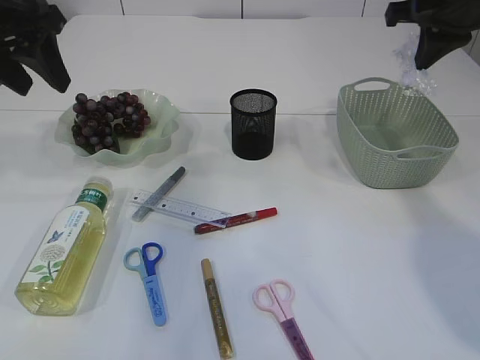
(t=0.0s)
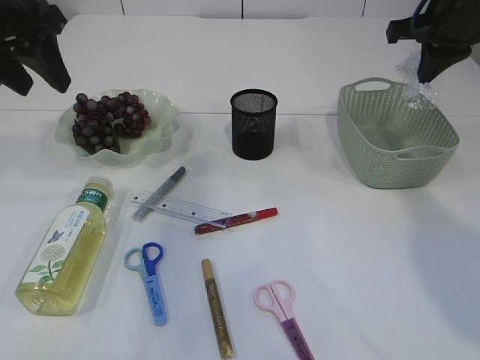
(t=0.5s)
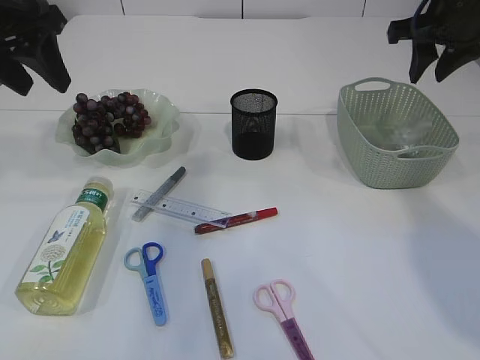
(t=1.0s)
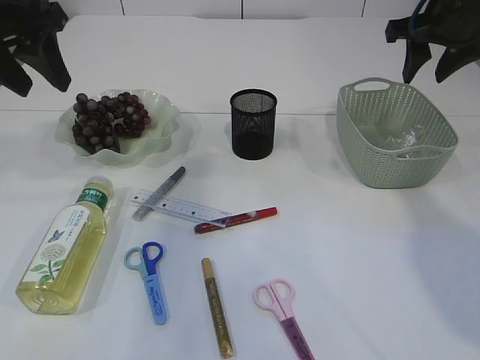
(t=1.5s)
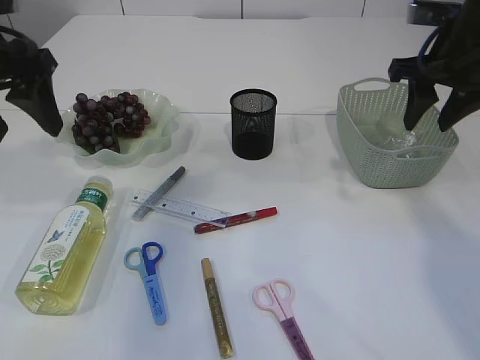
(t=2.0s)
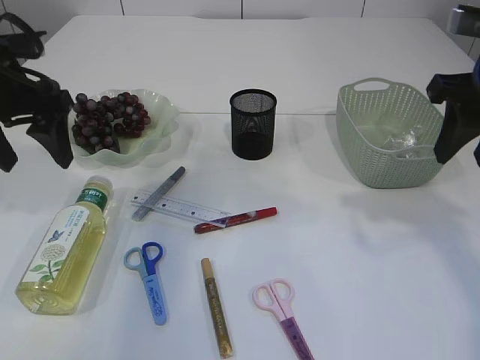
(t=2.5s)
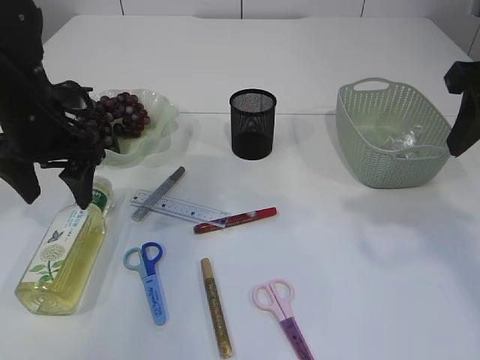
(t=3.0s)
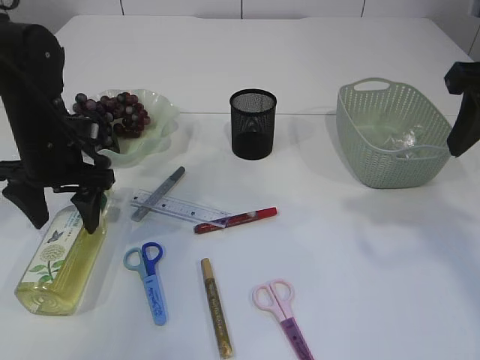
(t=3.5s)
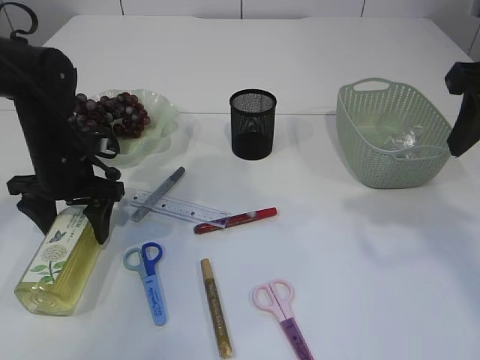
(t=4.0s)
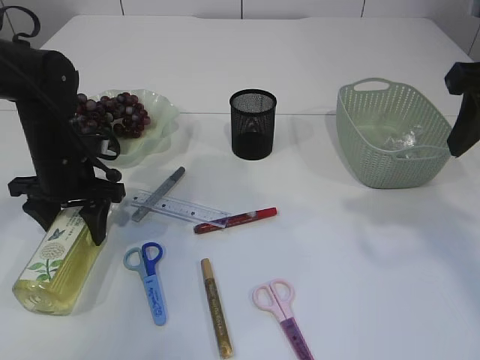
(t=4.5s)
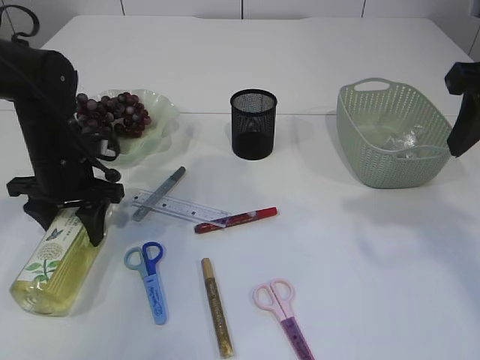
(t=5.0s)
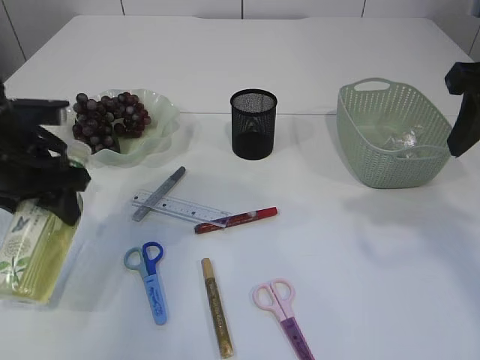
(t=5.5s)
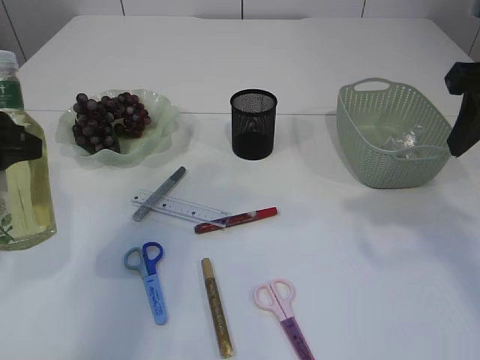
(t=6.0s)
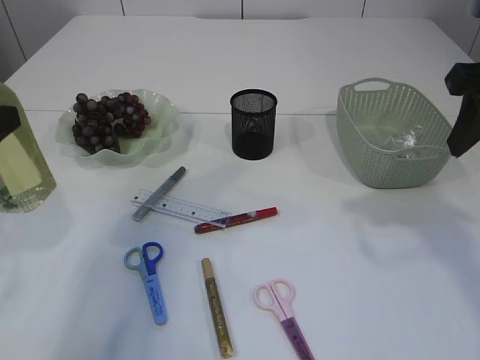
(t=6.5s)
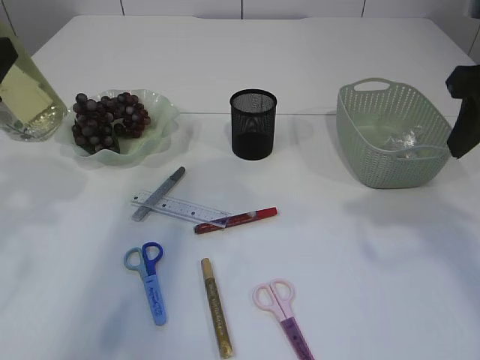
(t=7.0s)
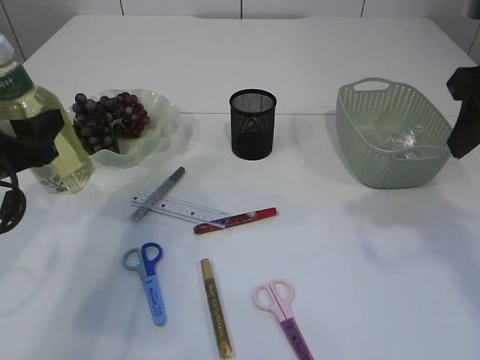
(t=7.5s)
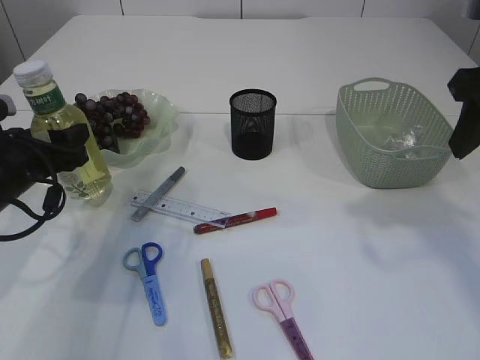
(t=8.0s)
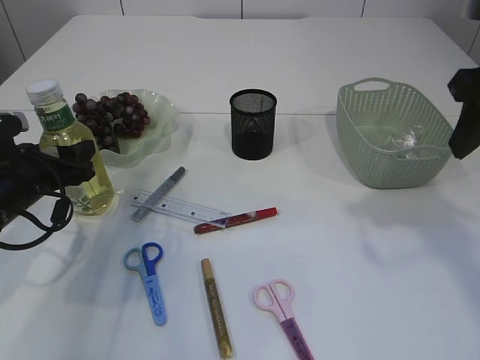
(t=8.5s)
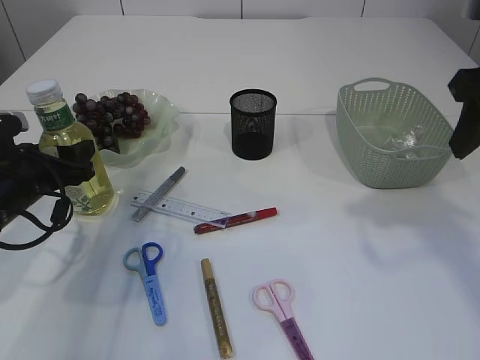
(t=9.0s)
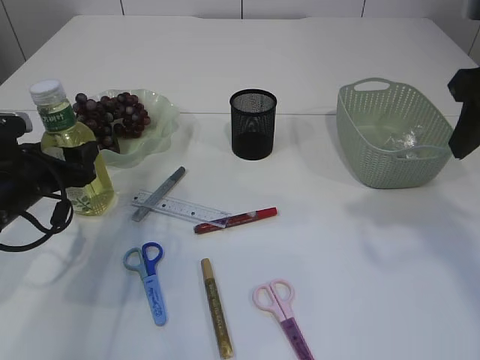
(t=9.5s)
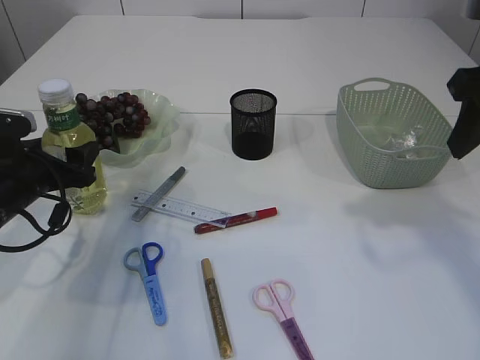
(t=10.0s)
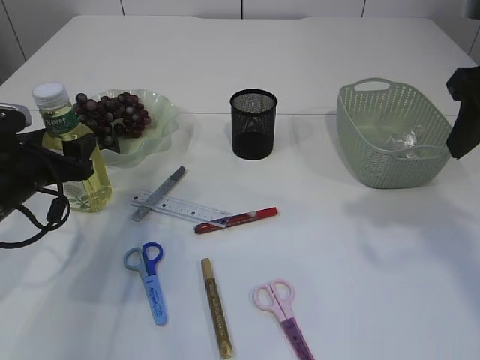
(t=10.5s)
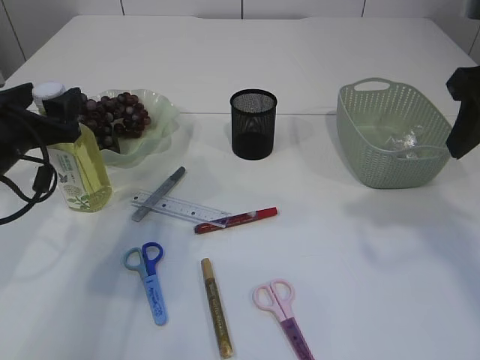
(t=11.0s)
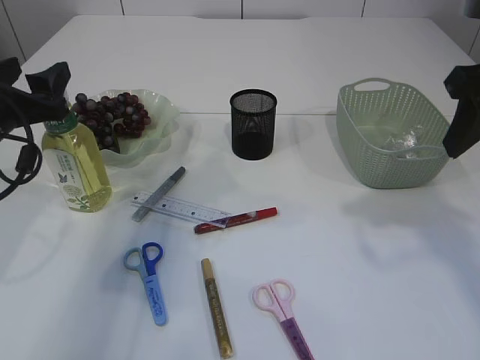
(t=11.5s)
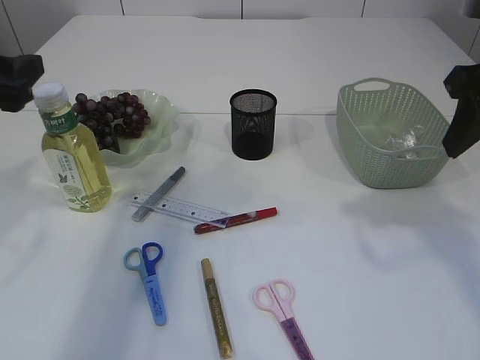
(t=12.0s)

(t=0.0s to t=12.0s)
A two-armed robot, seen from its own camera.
Step, t=0.0s - t=1.5s: Place the plastic in the basket.
Step, t=2.0s - t=5.5s: Pick up the bottle with the left arm.
Step, t=6.0s - t=12.0s: Place the bottle.
t=0.0s - t=2.0s: The right gripper moves roughly 5 cm, and opens.
t=2.0s - t=4.0s: The right gripper travels backward by some 10 cm. The left gripper is displaced downward by roughly 20 cm.
t=4.0s - t=6.0s: The left gripper heads backward and upward, covering some 20 cm.
t=6.0s - t=8.0s: The left gripper moves downward and forward, about 15 cm.
t=8.0s - t=10.0s: There are only small adjustments of the grippers.
t=10.0s - t=12.0s: The left gripper heads upward, covering some 15 cm.

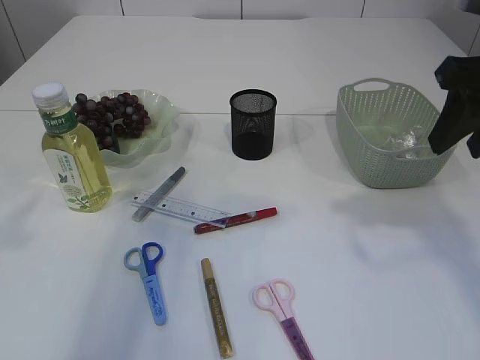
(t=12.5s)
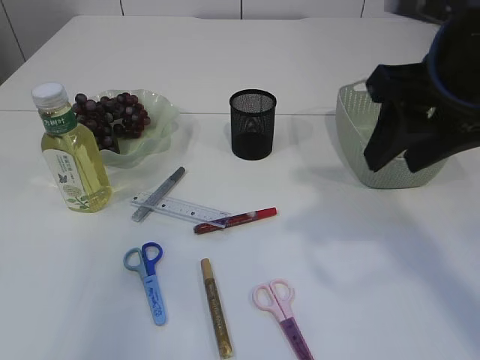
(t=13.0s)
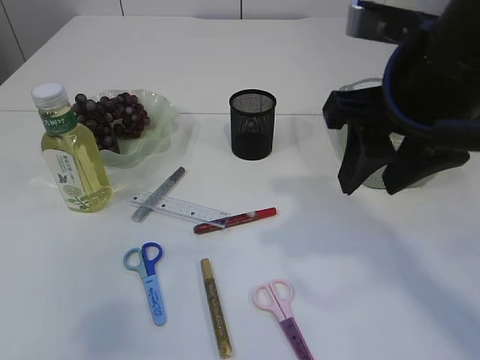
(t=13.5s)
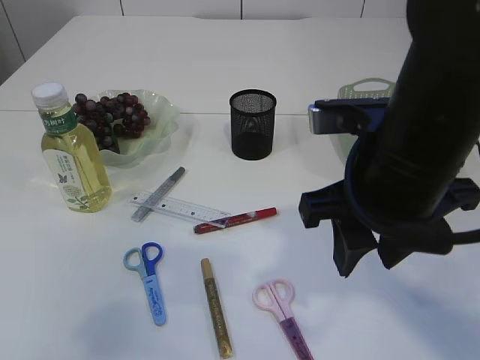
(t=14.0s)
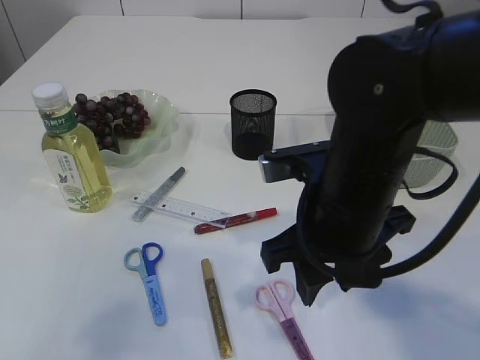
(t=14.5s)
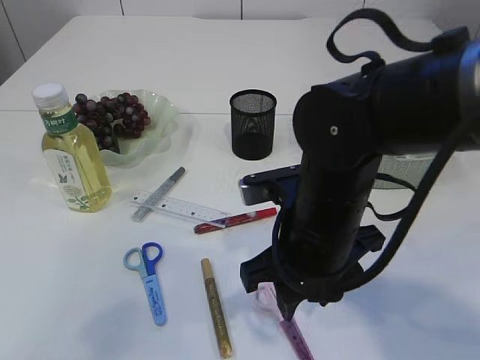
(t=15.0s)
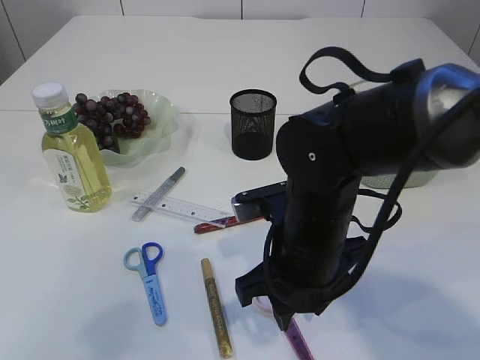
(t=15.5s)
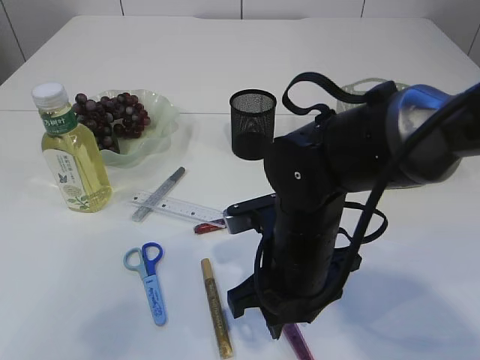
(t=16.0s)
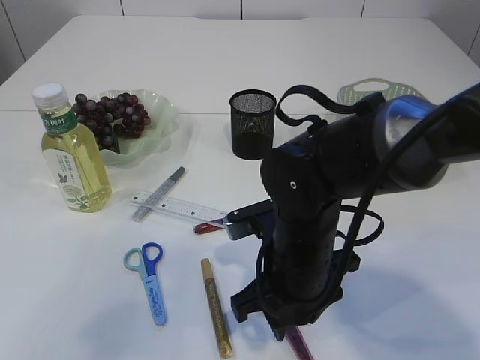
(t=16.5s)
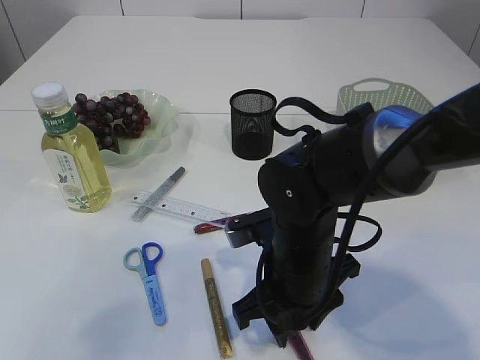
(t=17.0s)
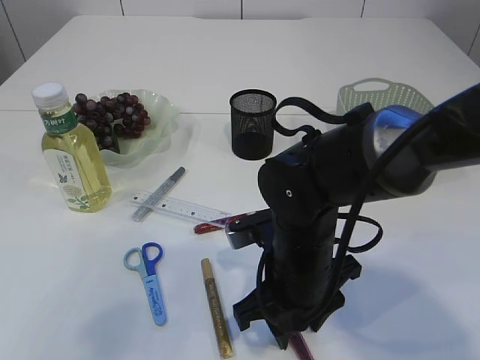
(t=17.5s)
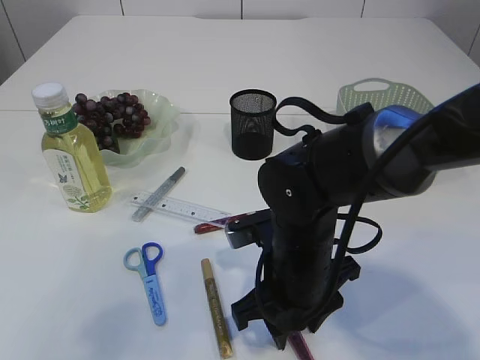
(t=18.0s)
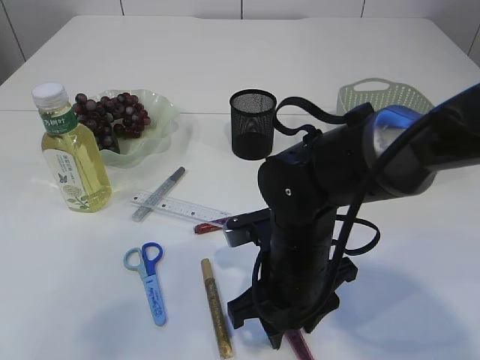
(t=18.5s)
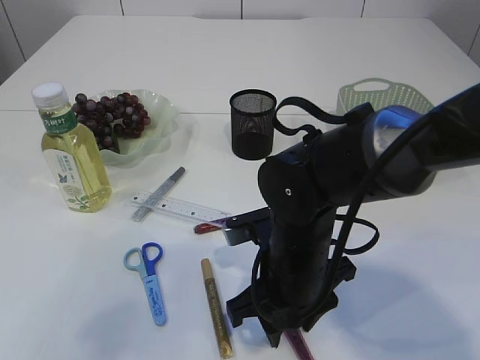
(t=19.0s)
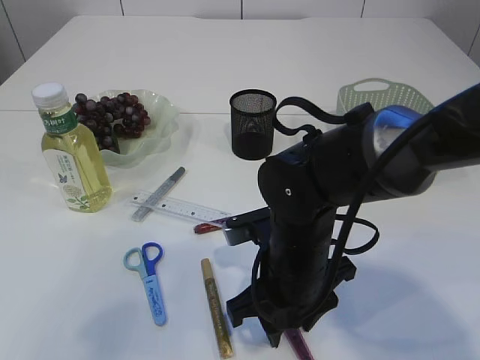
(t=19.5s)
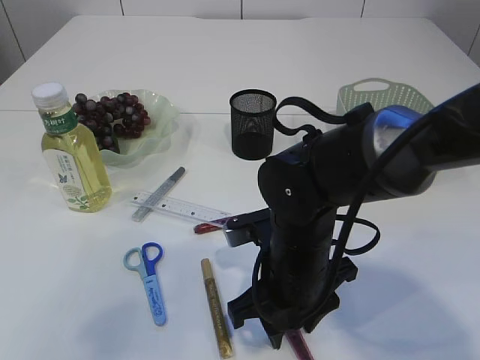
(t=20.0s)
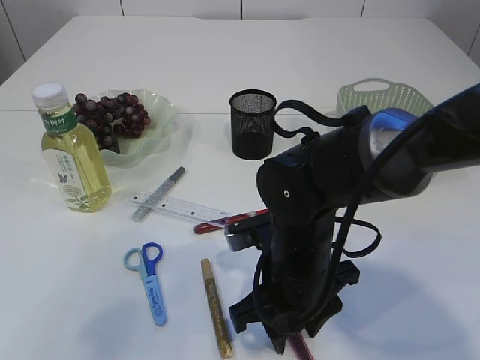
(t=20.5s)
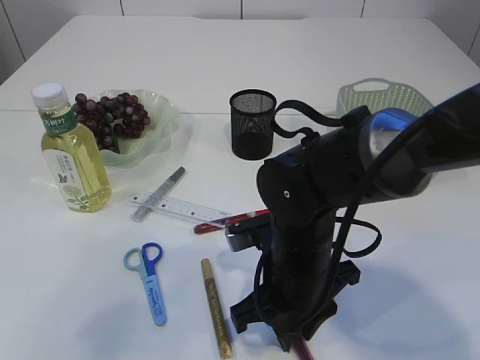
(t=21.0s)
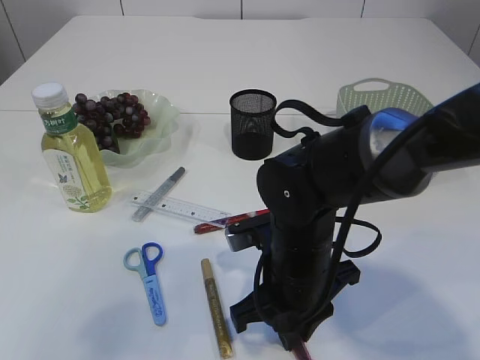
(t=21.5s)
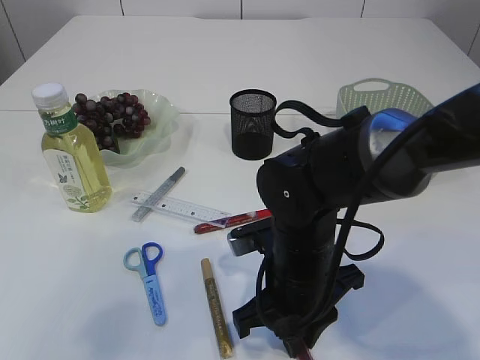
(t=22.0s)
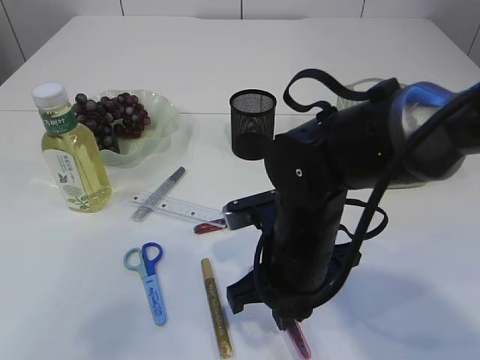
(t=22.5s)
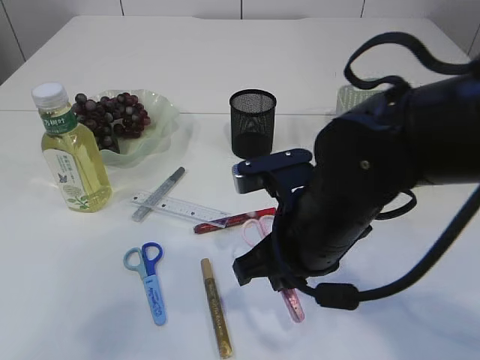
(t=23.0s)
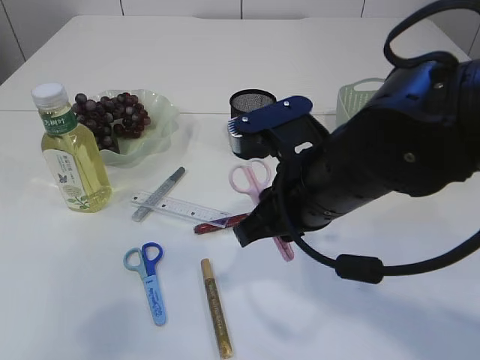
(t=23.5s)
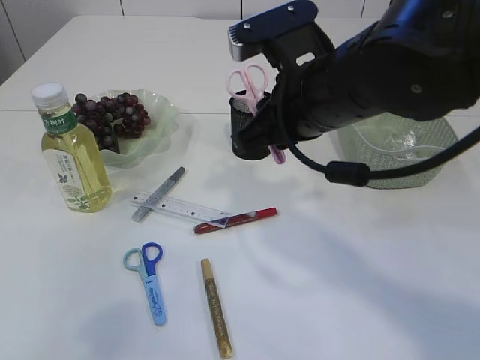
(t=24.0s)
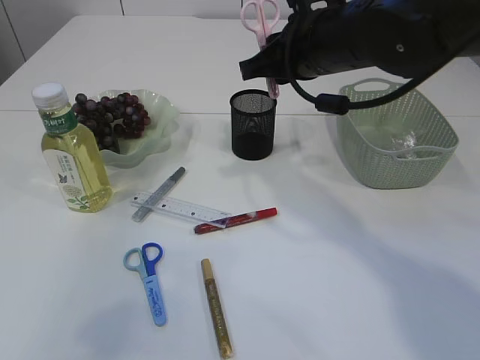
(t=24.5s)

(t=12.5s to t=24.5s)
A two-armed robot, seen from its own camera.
Step, t=12.5s - t=23.0s: pick up the pink scissors.
t=12.5s - t=14.5s: The left gripper is displaced backward by roughly 10 cm. The right gripper travels to the left and downward by about 20 cm.
t=14.5s - t=16.5s: The right gripper shifts approximately 10 cm downward.
t=16.5s - t=18.5s: Both grippers stay about where they are.
t=18.5s - t=20.5s: Both grippers stay about where they are.
t=20.5s - t=22.5s: The right gripper closes up.
t=22.5s - t=24.5s: The right gripper is displaced upward and forward by about 20 cm.

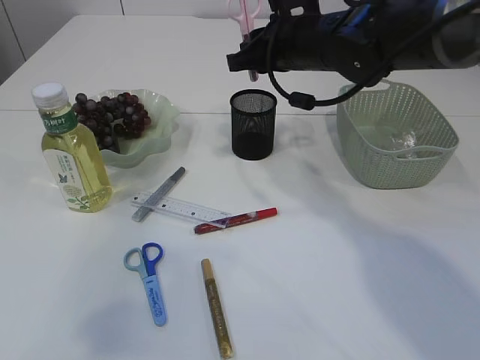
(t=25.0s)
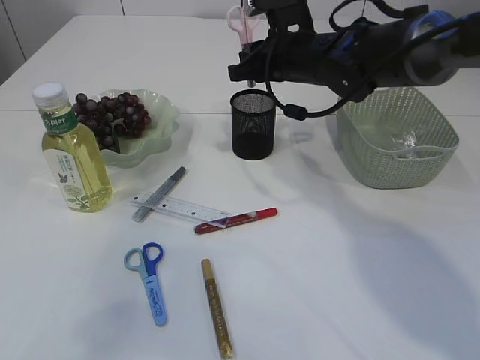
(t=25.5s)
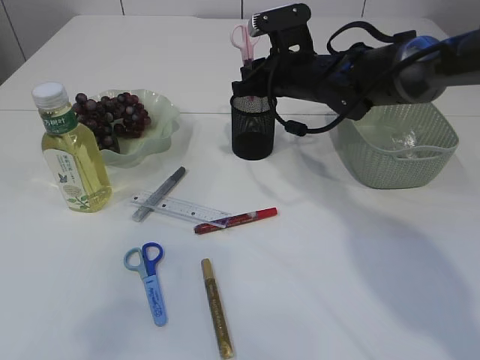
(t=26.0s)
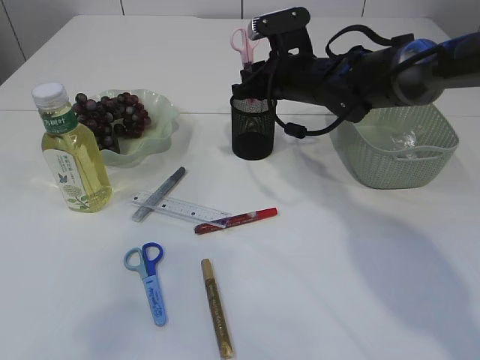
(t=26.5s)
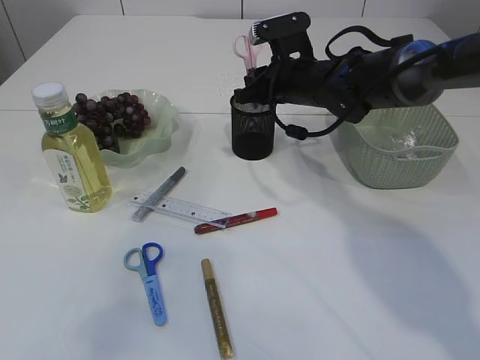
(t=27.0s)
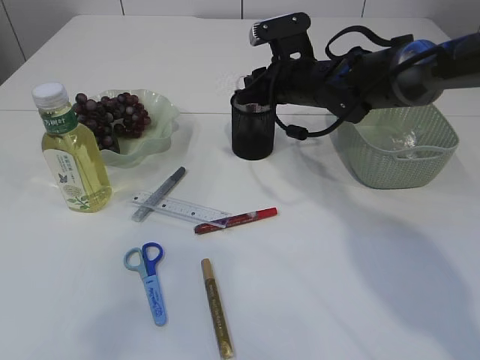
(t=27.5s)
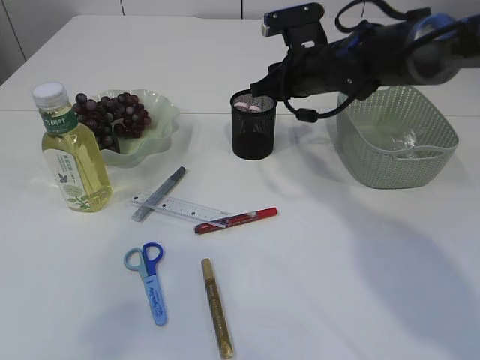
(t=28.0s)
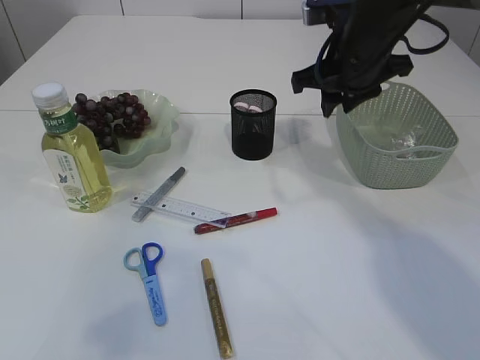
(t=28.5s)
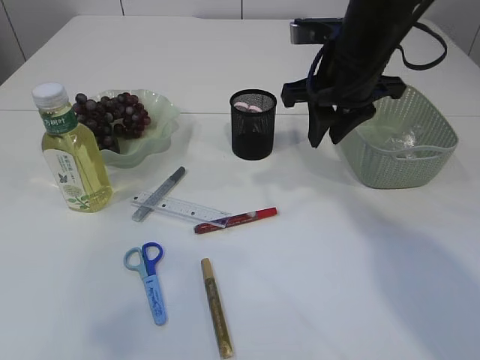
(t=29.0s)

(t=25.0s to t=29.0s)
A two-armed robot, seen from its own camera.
Step, t=25.0s - t=28.0s: Place the pink scissors into the pen holder.
t=25.0s - t=27.0s: The right gripper heads downward, covering roughly 5 cm.
t=27.0s - t=29.0s: The right gripper shifts approximately 10 cm backward and upward.
